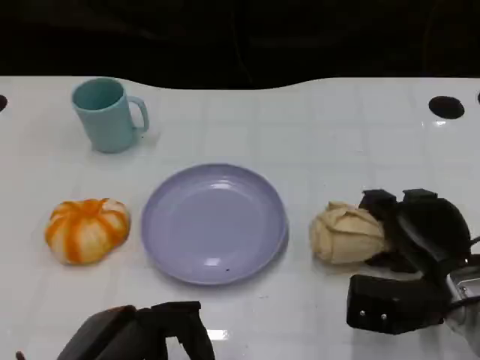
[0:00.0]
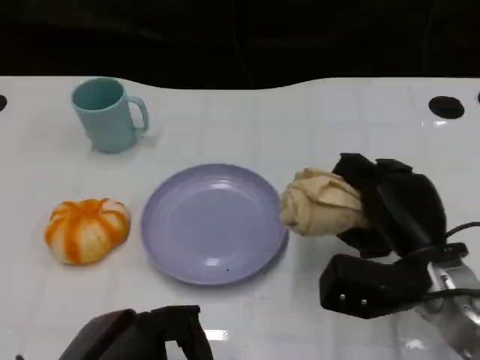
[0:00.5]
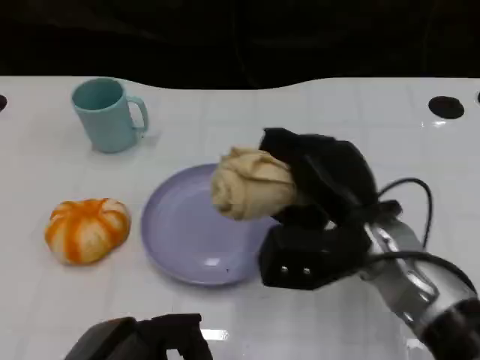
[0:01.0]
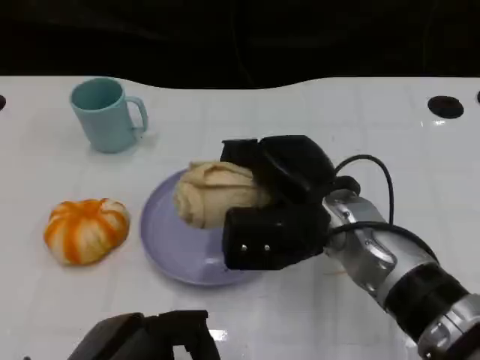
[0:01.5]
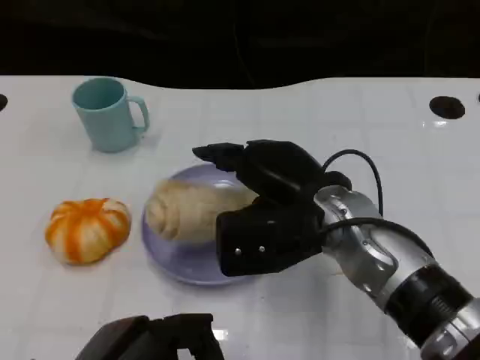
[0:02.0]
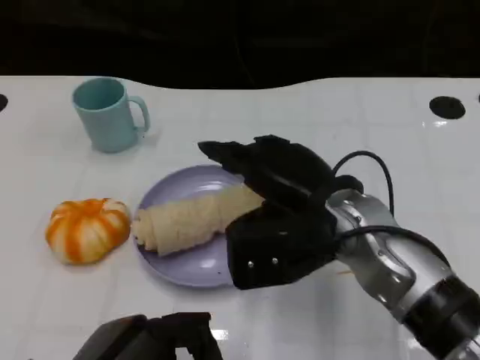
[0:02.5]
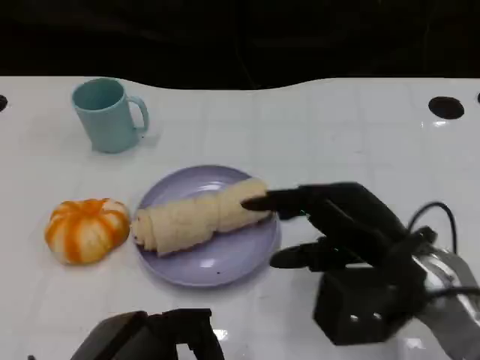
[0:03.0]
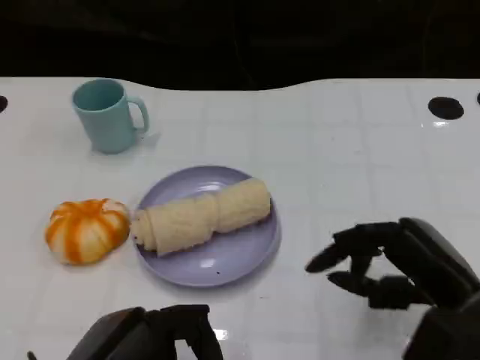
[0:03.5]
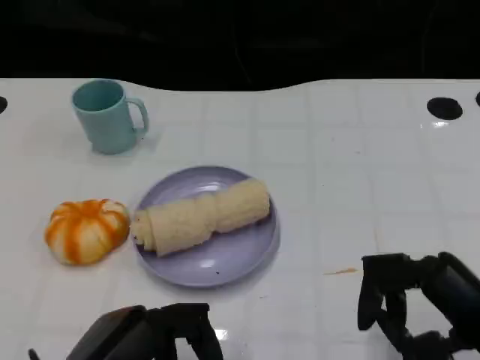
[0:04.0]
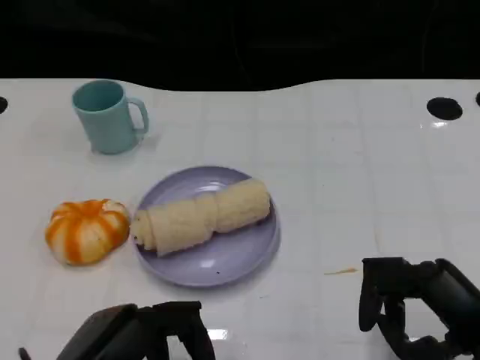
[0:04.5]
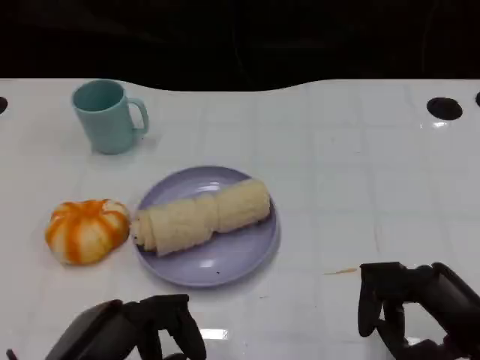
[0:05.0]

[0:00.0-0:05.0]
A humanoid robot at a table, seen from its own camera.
Task of the whole recording: Grasp the towel on the left side of the plate with the left hand and place it into the plate.
0:00.0 to 0:02.5: The right hand goes approximately 15 cm to the left and upward.
0:02.5 to 0:05.0: The right hand goes some 20 cm to the right and backward.
